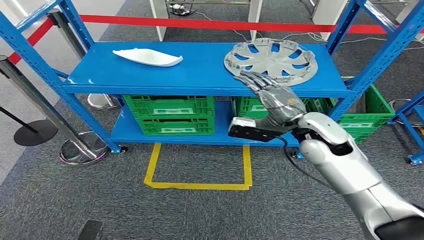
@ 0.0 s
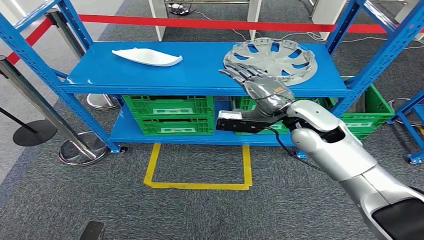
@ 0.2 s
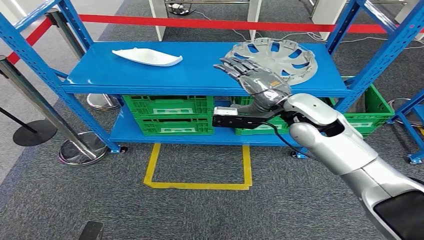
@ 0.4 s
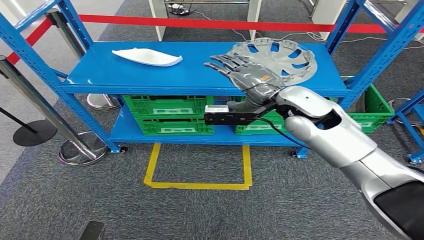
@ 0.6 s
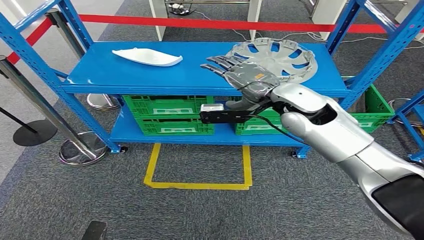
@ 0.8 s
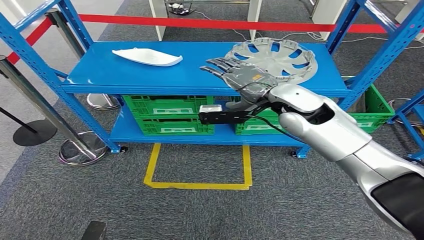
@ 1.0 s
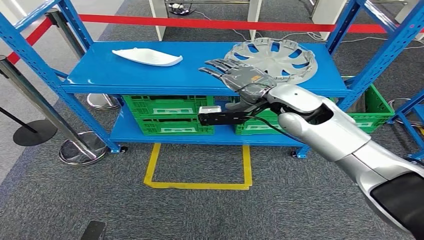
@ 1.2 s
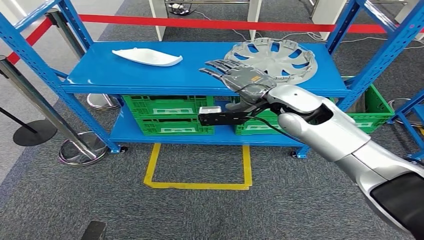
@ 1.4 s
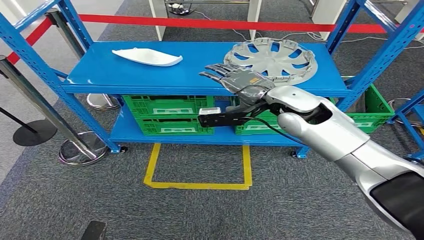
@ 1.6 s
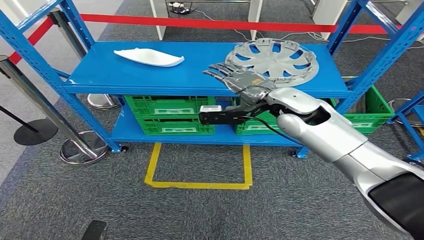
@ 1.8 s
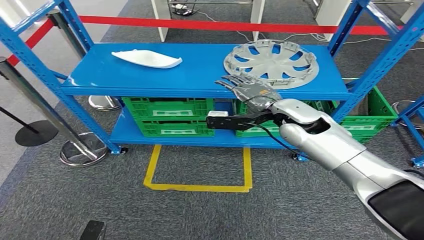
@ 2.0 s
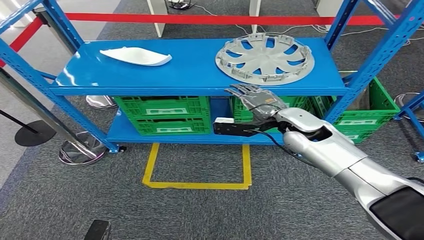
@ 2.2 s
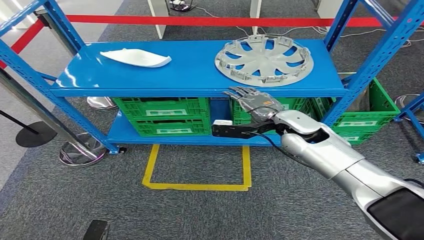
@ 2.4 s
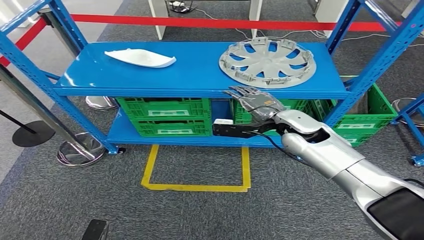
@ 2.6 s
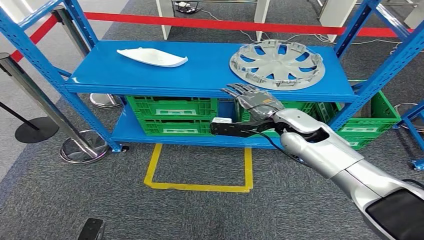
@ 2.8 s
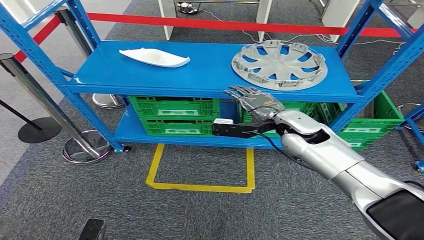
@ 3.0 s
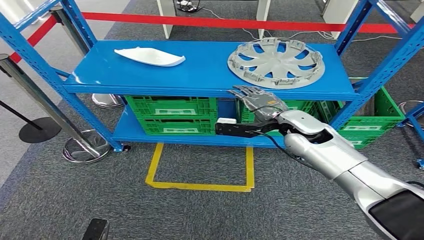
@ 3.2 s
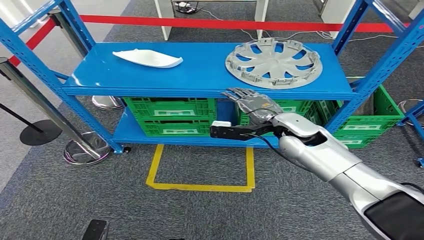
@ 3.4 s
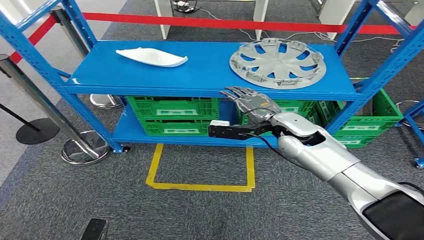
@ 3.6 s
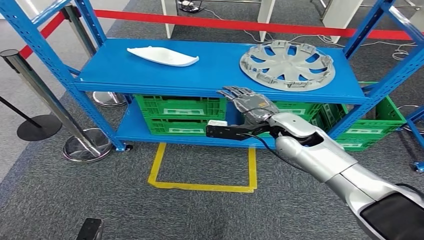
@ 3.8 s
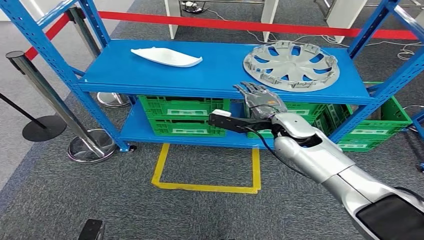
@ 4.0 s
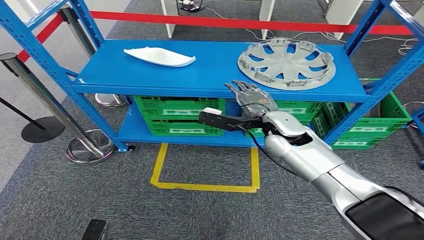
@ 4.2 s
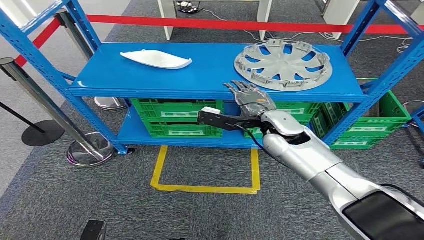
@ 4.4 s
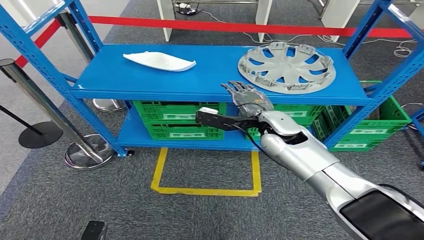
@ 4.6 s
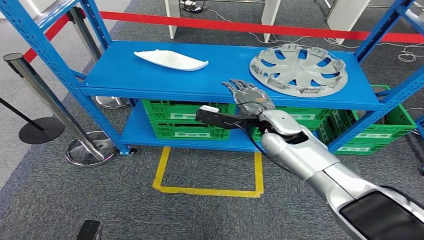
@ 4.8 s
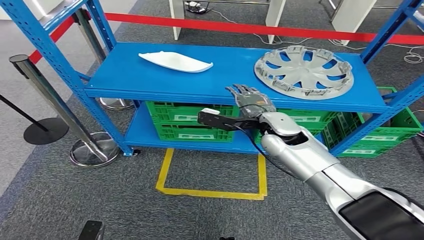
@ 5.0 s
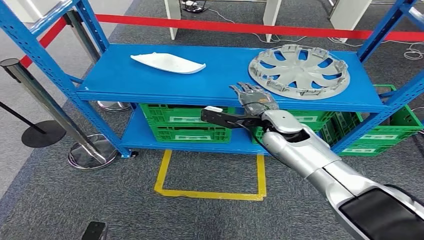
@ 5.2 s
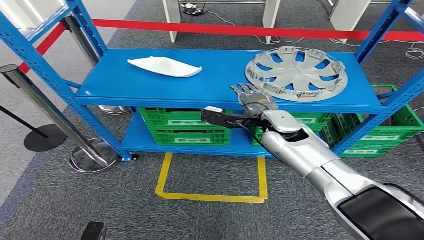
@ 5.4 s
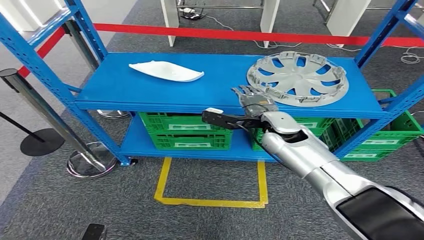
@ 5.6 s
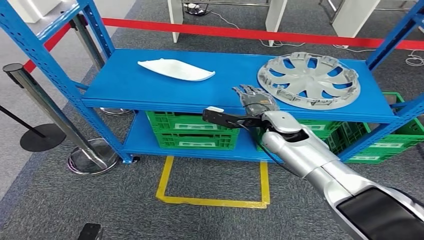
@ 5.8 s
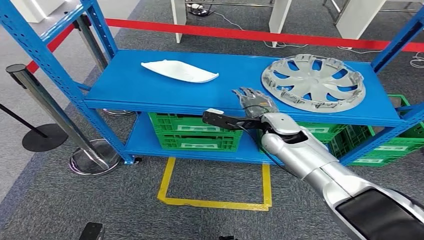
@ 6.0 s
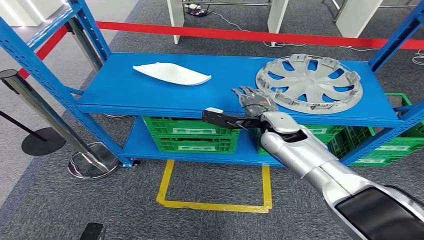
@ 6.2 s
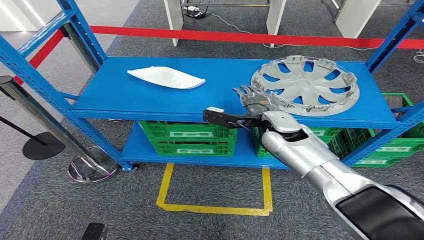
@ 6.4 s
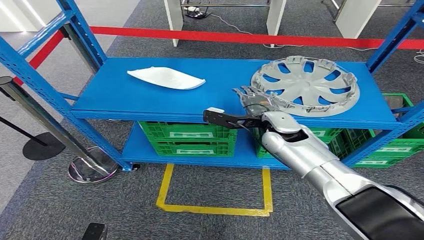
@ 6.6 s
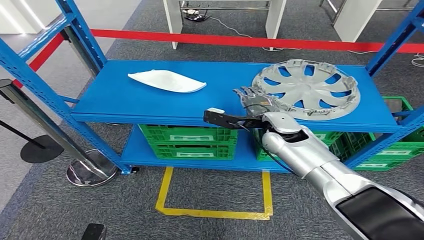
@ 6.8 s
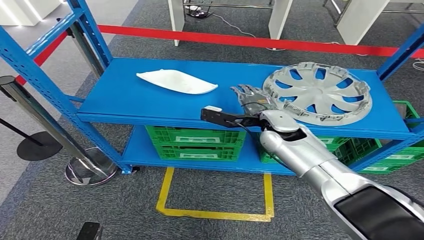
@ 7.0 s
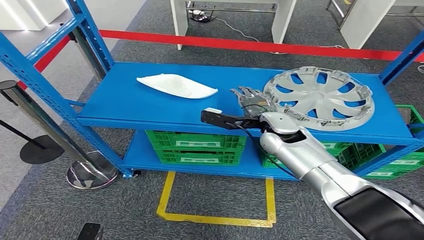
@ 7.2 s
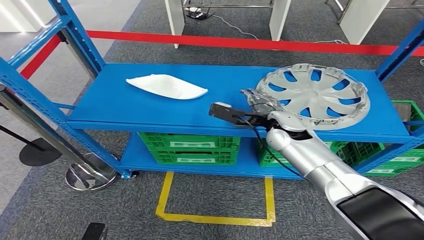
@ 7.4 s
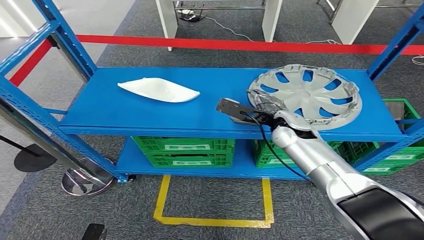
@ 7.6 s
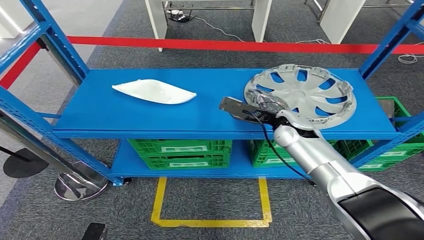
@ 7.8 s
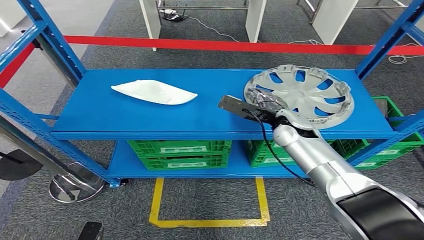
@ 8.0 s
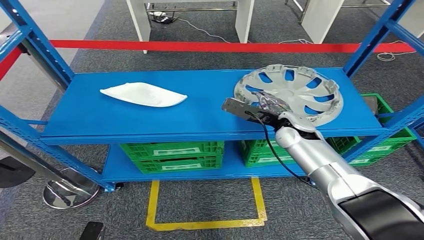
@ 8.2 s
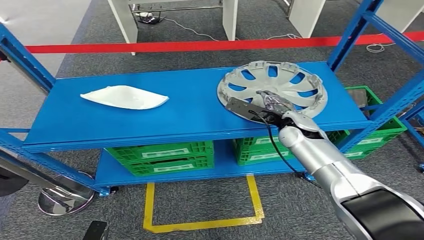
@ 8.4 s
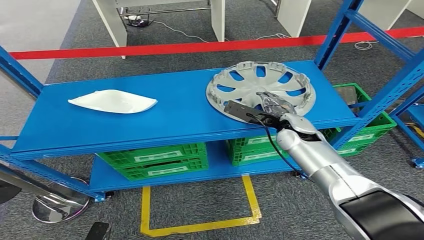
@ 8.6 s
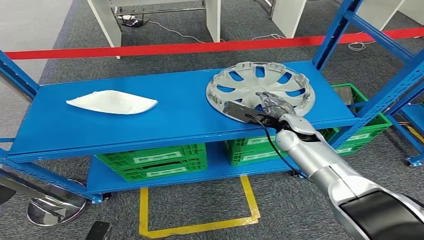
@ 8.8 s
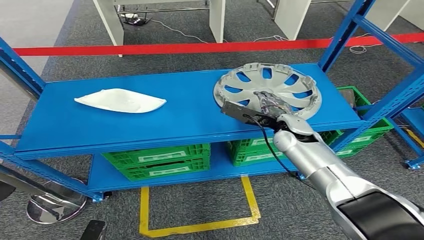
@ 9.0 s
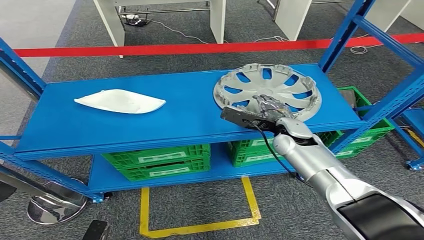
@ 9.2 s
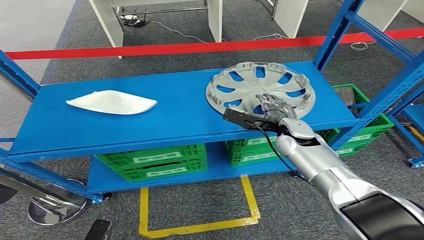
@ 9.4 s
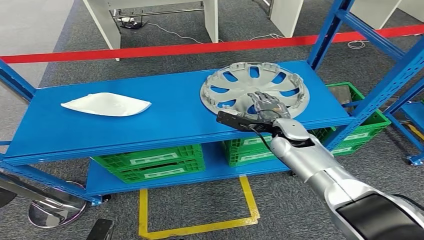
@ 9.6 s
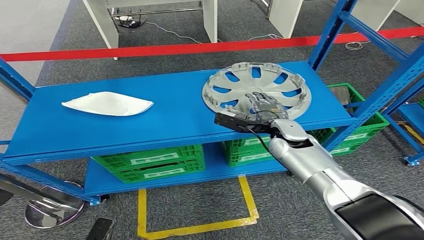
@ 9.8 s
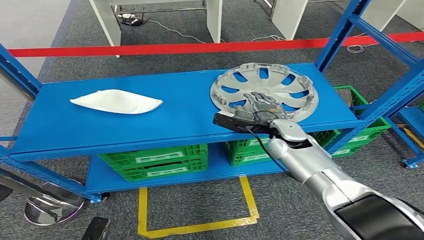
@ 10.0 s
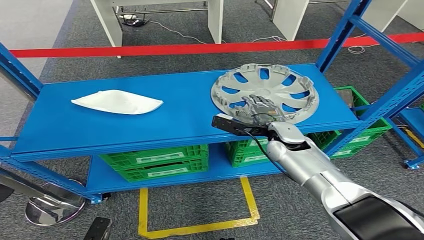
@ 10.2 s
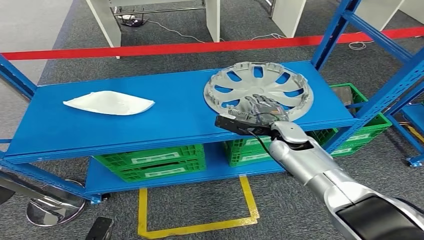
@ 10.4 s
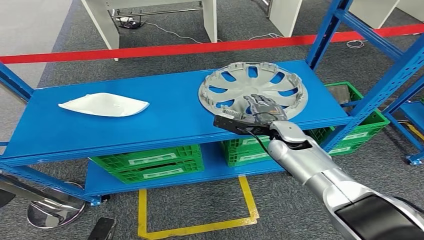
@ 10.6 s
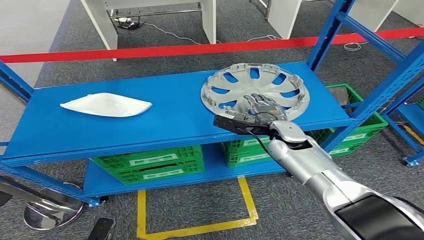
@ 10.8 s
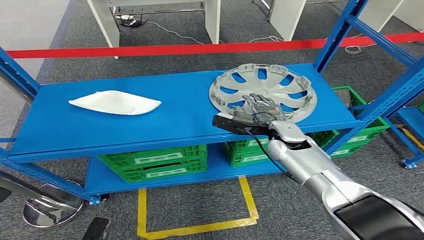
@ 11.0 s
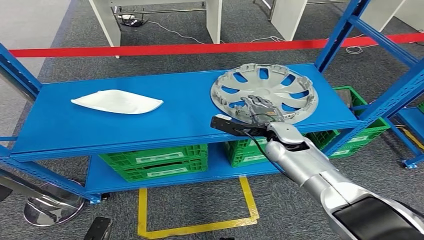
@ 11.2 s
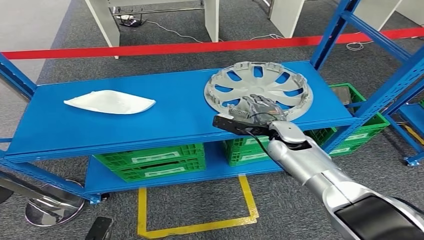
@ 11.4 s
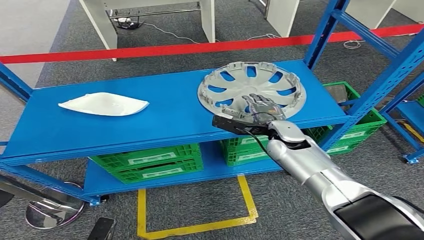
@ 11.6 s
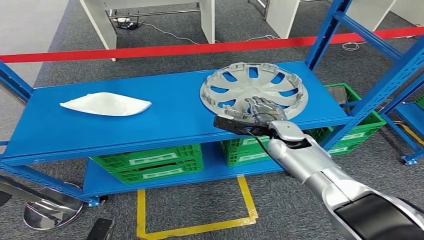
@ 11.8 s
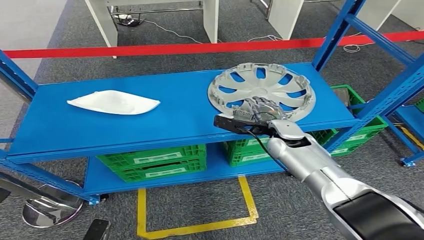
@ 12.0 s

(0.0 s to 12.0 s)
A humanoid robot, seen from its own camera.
10.4 s - 12.0 s: The hands stay close to where they were, moving slightly.

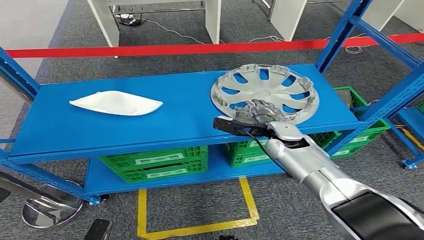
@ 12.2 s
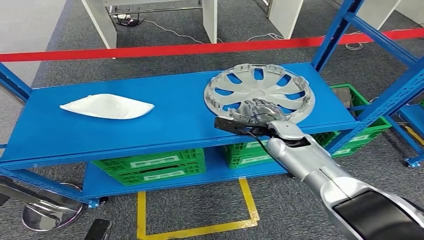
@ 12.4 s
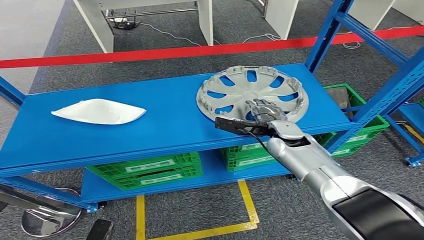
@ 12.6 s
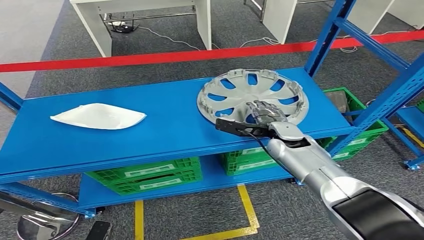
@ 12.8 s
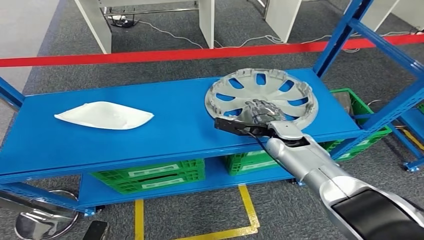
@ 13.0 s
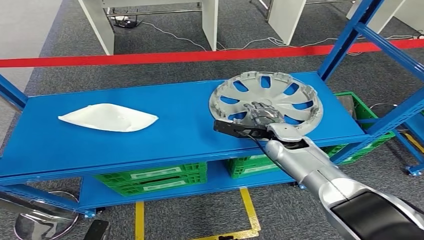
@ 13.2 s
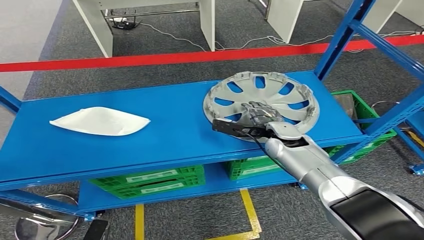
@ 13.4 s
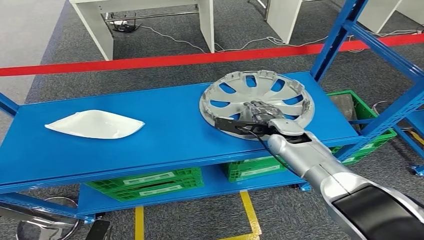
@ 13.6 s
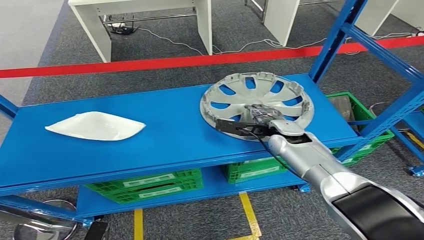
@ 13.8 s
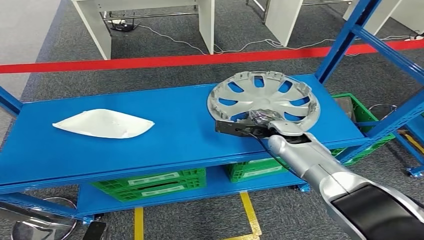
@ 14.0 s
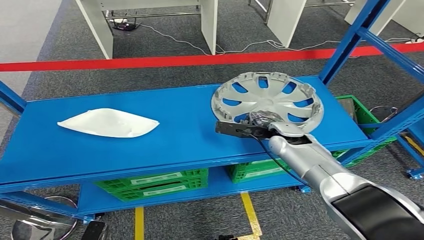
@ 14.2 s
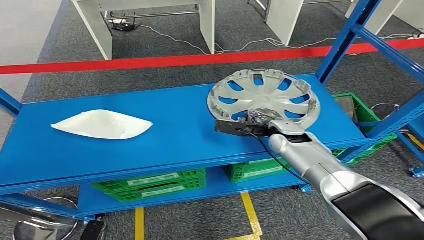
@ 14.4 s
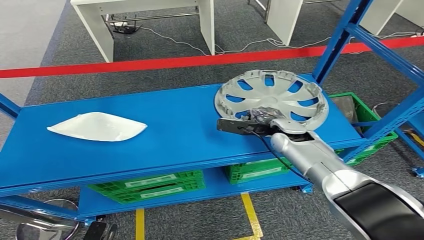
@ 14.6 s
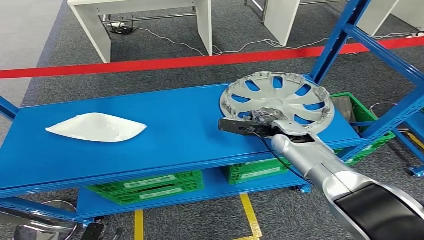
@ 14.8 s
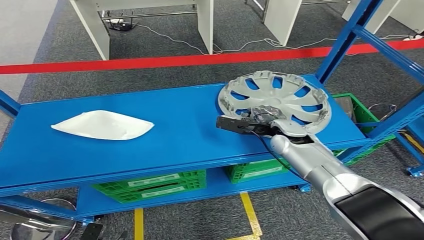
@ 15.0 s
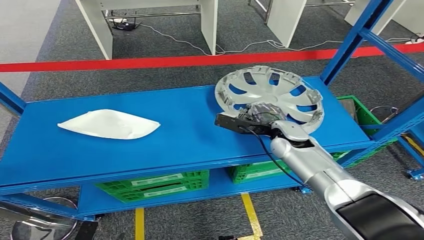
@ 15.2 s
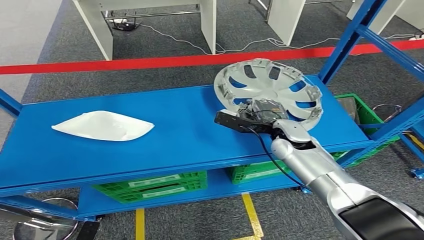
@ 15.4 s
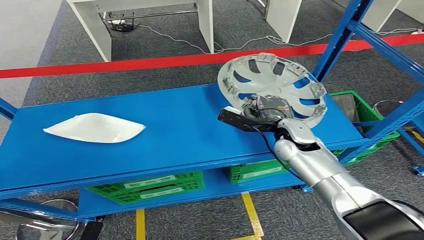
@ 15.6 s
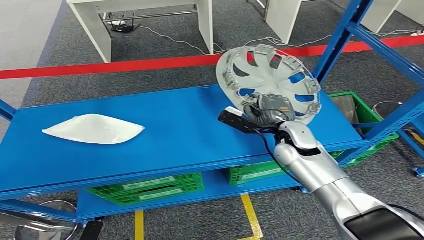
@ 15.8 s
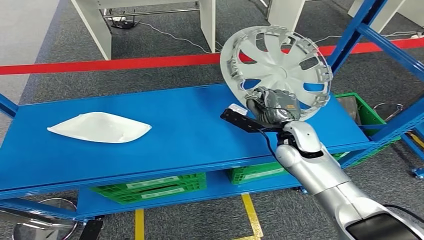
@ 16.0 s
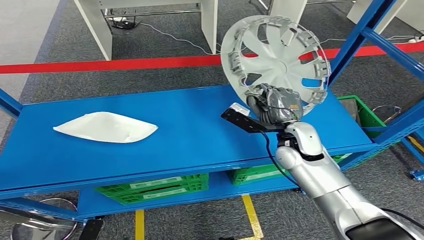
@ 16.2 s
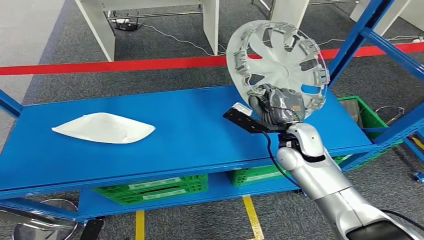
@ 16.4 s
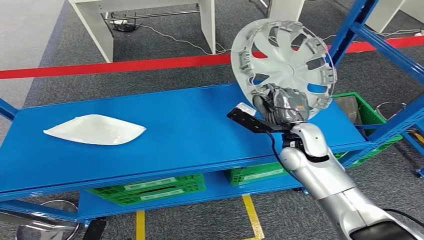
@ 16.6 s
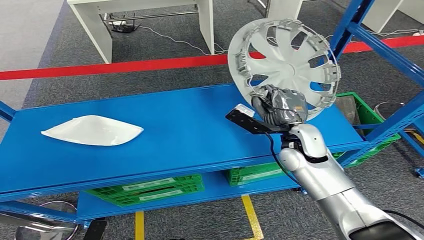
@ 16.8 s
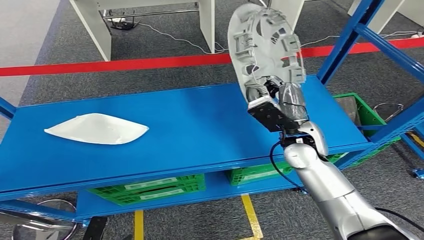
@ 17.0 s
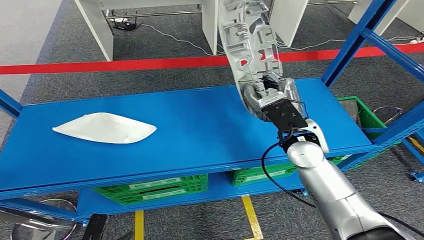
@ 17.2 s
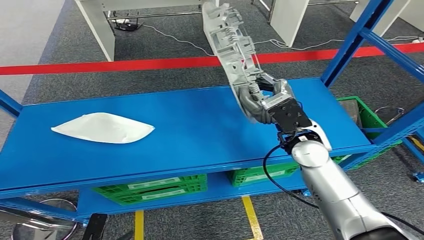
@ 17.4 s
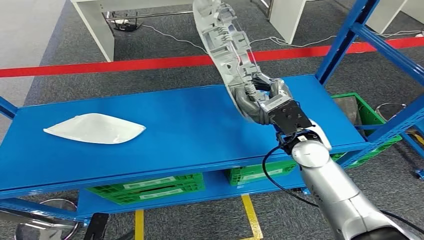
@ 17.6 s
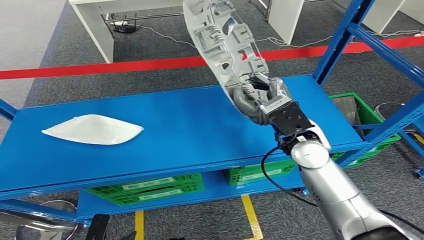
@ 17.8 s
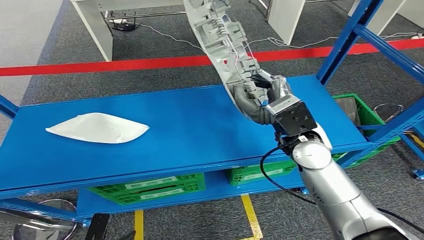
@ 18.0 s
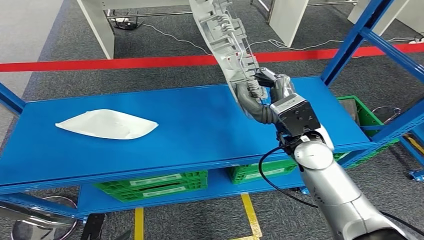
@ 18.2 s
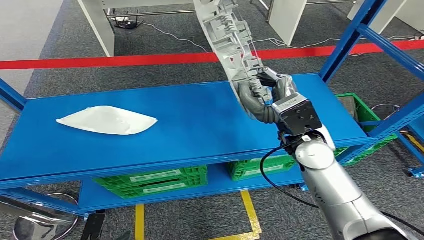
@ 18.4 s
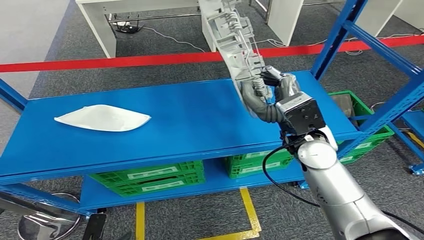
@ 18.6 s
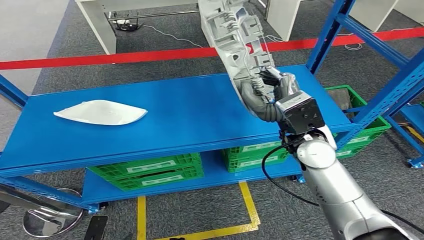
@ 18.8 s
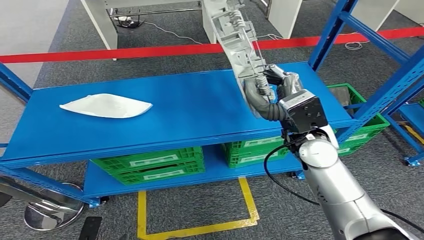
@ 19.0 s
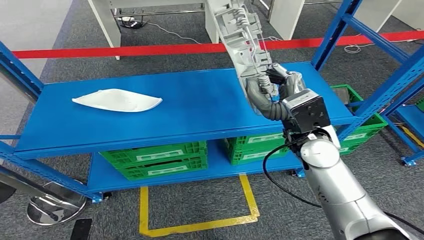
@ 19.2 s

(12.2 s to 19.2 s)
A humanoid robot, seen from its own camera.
Step, 12.2 s - 16.4 s: Pick up the small component from the shelf.
Step, 16.6 s - 16.8 s: Move the small component to the workbench.
13.6 s - 15.0 s: The hands move only a little.
